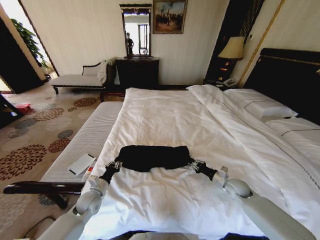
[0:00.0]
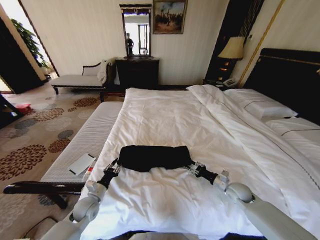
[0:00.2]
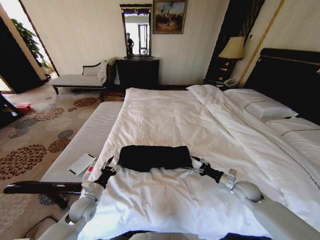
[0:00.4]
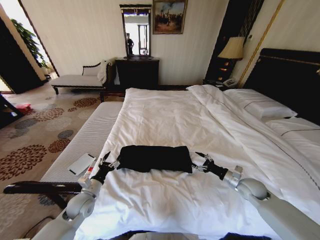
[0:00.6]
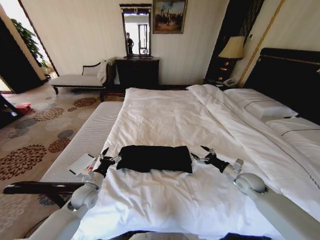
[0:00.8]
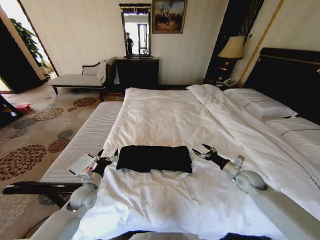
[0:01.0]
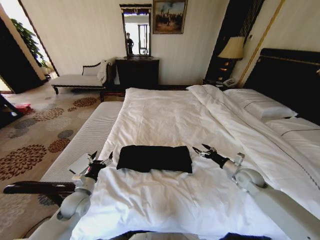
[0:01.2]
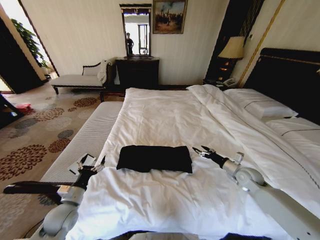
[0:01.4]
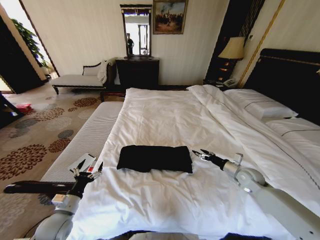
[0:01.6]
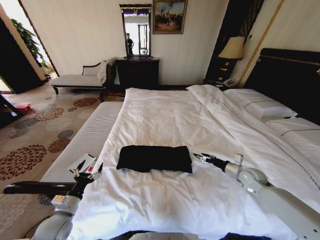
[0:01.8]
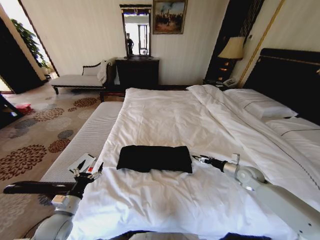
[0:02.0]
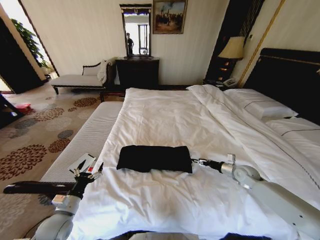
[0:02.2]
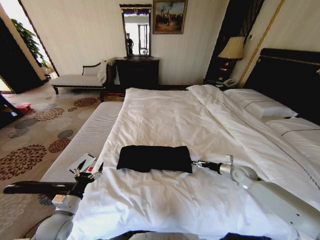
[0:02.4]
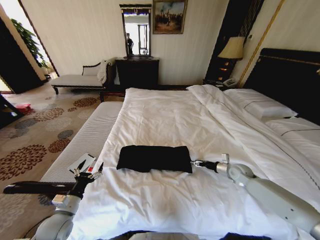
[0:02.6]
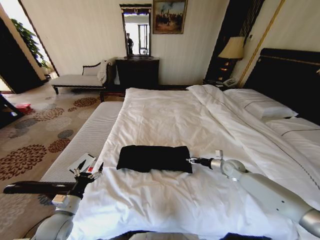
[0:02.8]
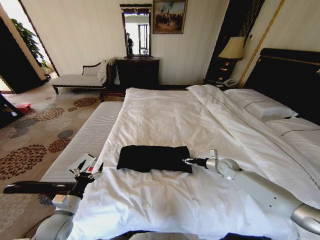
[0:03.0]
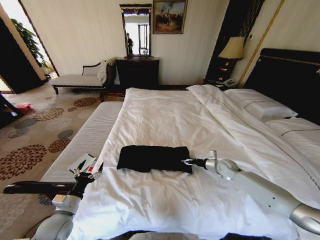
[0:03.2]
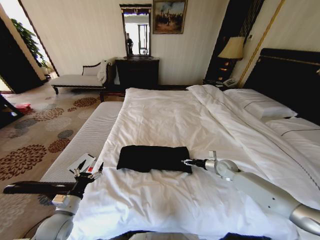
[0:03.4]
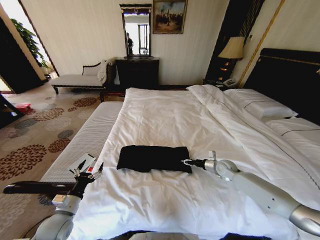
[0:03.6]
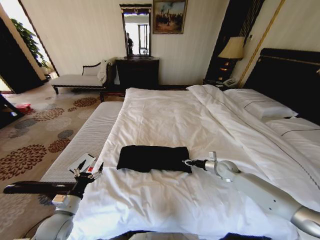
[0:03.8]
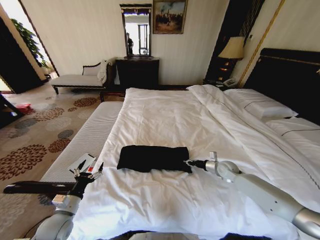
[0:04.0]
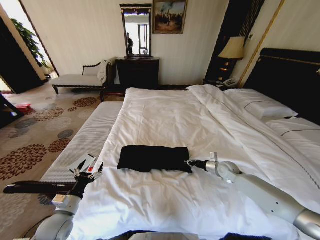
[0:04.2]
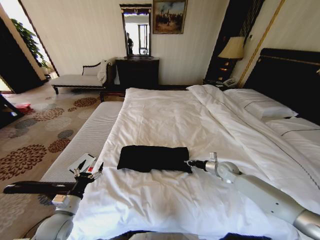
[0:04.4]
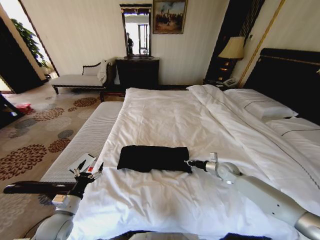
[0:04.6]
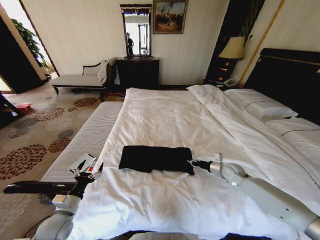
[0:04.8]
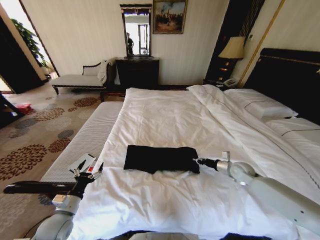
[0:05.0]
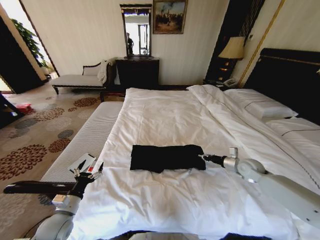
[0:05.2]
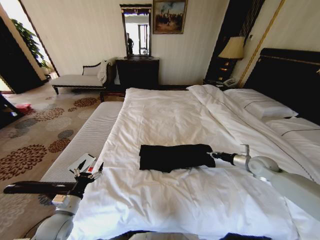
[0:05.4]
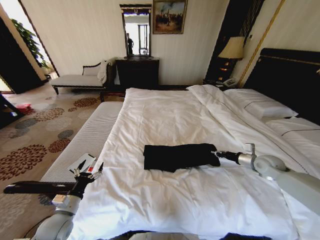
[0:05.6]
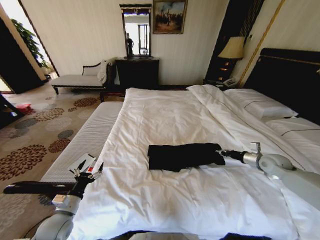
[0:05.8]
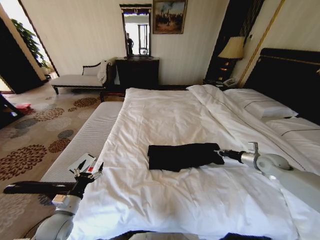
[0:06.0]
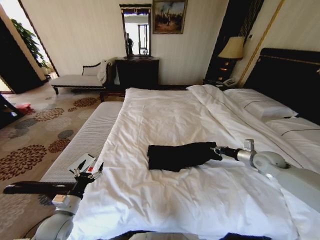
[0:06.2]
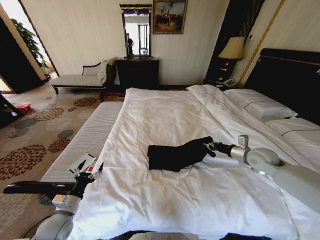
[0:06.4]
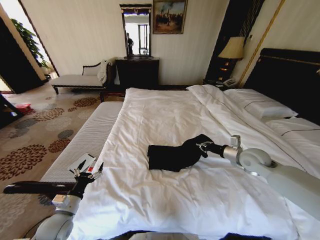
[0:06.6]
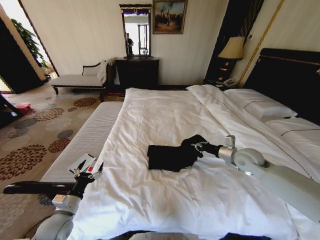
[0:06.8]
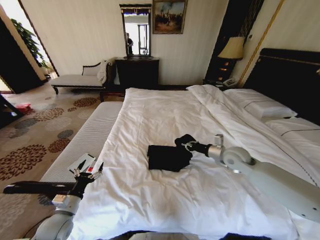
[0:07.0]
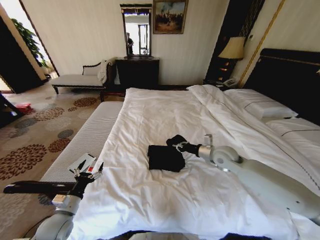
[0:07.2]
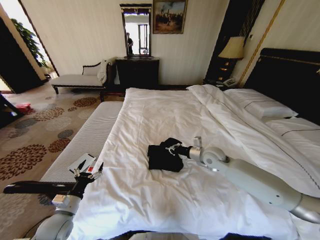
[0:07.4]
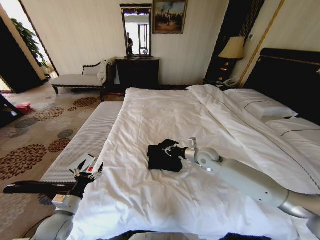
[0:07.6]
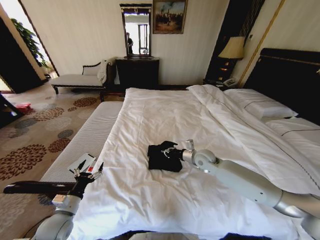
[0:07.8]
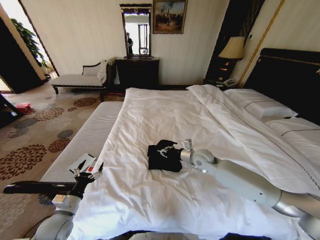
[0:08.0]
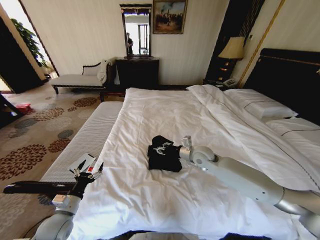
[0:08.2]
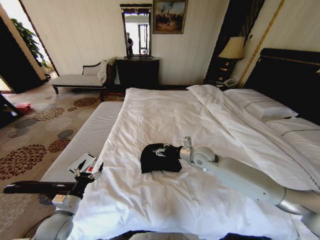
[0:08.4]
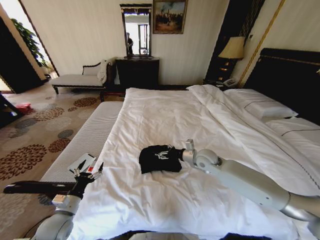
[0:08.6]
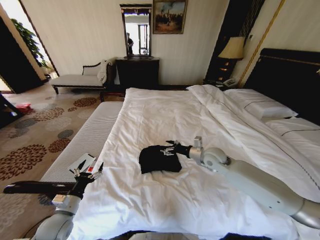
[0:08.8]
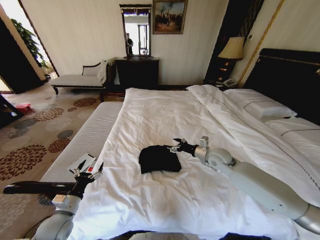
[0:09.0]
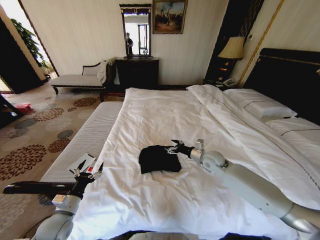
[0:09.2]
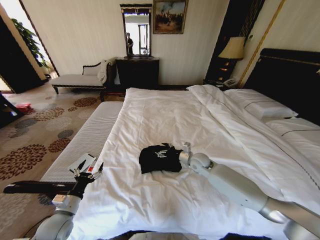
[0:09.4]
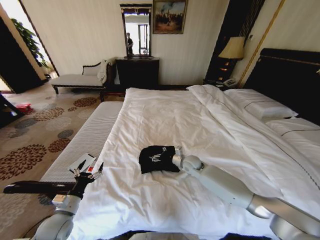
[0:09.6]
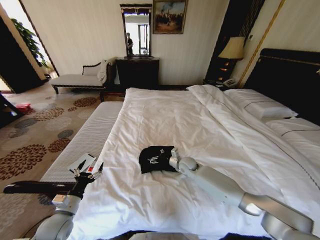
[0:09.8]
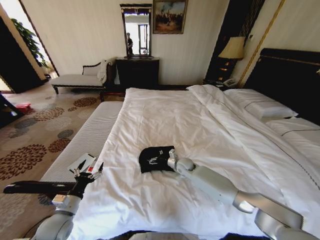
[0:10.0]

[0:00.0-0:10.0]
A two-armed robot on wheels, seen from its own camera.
Task of the whole recording: Fold the clothes on the bed.
0:00.0 to 0:01.4: The left gripper travels backward, to the left and upward by roughly 10 cm, and opens up, while the right gripper moves upward, roughly 5 cm, and opens up.
0:01.4 to 0:02.8: The right gripper shifts about 5 cm forward.
0:02.8 to 0:04.2: The right gripper closes its fingers.
0:04.2 to 0:05.8: The right gripper shifts some 20 cm to the right and upward.
0:05.8 to 0:07.2: The right gripper heads to the left, covering some 25 cm.
0:07.2 to 0:08.6: The right gripper is displaced to the left by about 5 cm, and opens up.
0:08.6 to 0:10.0: The right gripper moves downward and to the left, about 15 cm.

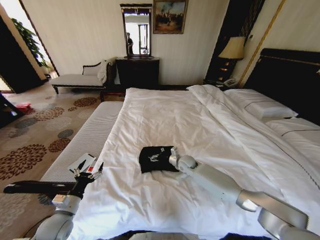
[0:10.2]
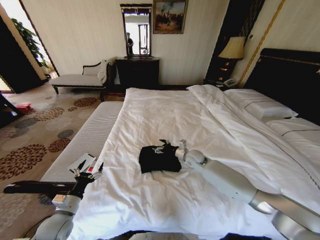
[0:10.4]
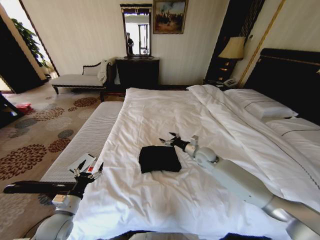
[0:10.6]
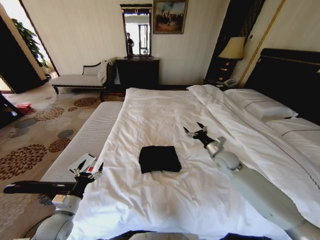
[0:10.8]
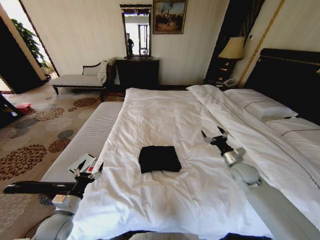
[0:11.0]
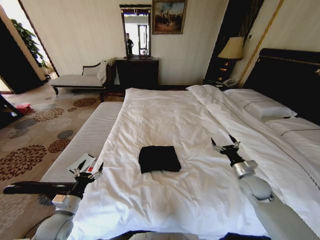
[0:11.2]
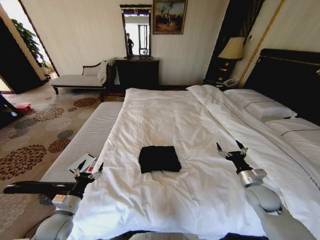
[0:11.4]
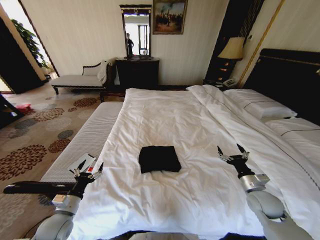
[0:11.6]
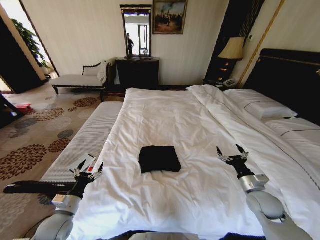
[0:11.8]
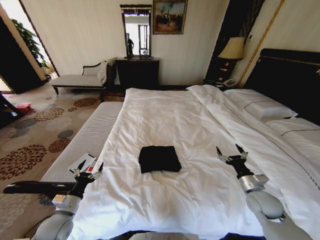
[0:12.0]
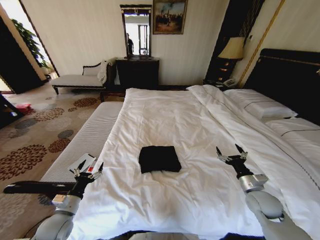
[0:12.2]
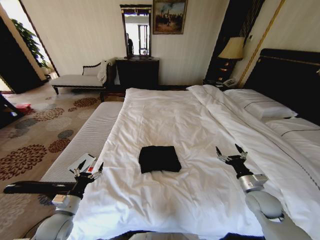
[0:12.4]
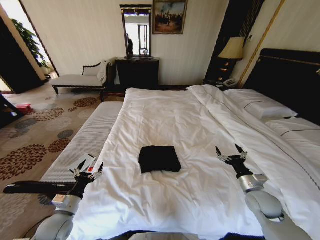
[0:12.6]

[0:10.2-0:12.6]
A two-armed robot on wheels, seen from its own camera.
Task of the whole recording: Fold the clothes on the bed.
0:10.2 to 0:11.4: The right gripper goes roughly 30 cm to the right and backward.
0:11.4 to 0:12.6: There are only small adjustments of the grippers.

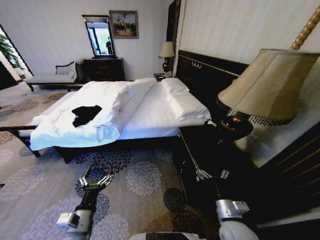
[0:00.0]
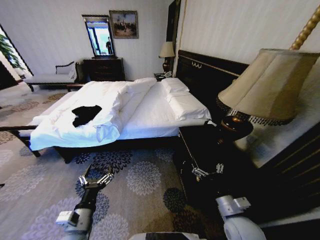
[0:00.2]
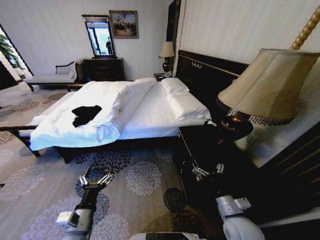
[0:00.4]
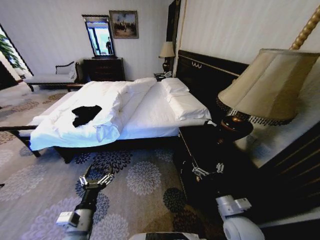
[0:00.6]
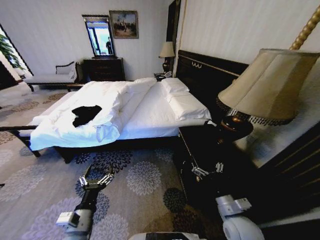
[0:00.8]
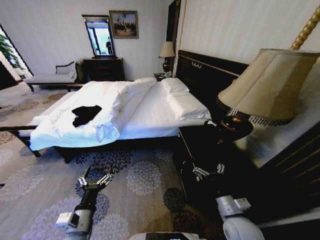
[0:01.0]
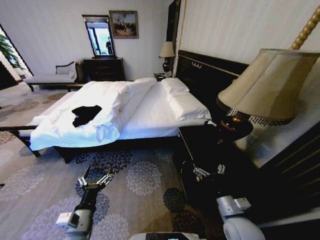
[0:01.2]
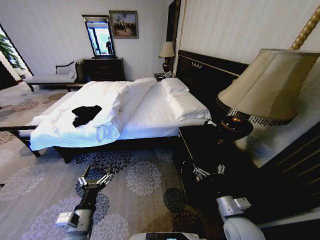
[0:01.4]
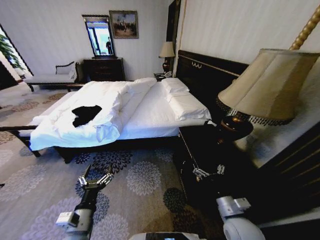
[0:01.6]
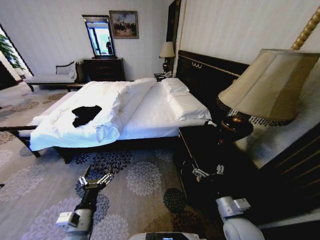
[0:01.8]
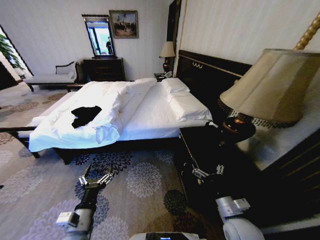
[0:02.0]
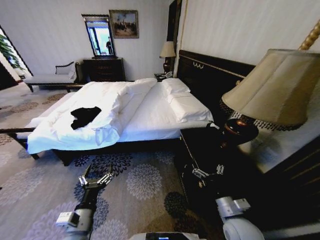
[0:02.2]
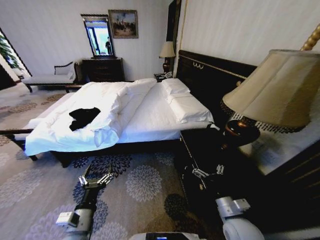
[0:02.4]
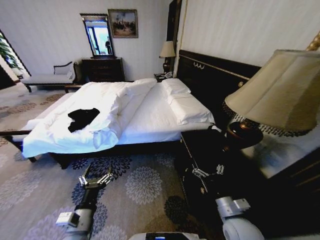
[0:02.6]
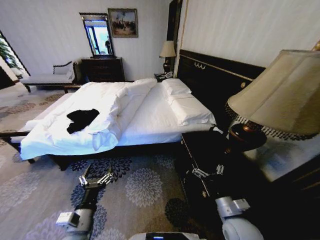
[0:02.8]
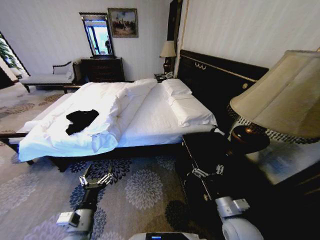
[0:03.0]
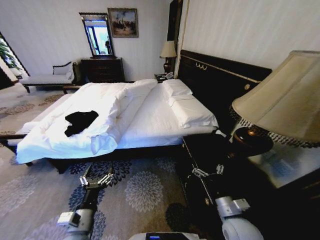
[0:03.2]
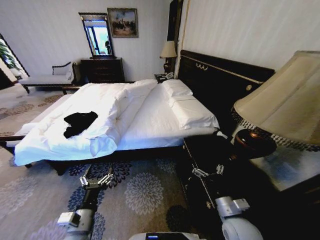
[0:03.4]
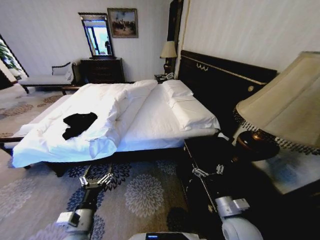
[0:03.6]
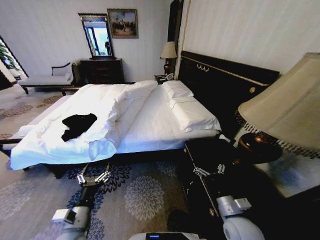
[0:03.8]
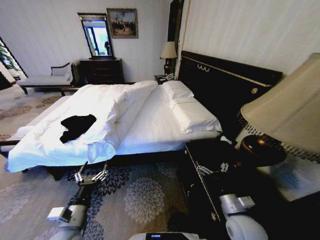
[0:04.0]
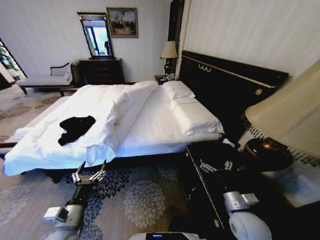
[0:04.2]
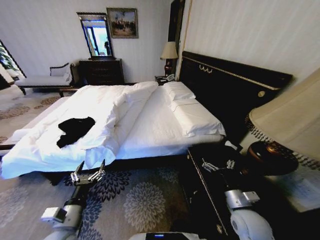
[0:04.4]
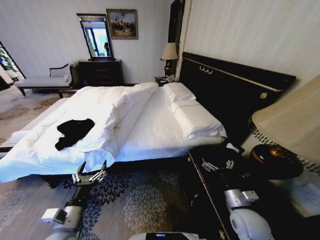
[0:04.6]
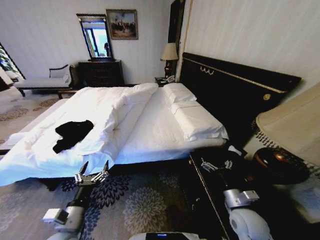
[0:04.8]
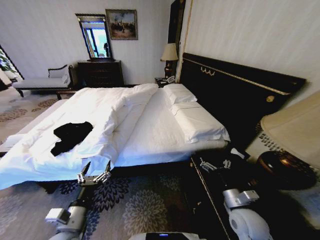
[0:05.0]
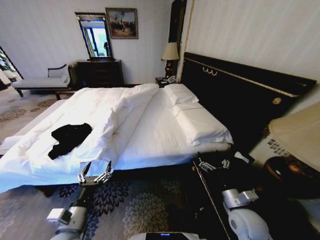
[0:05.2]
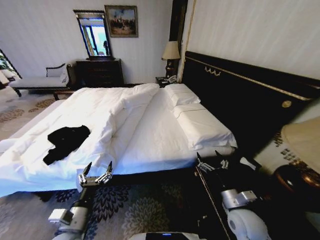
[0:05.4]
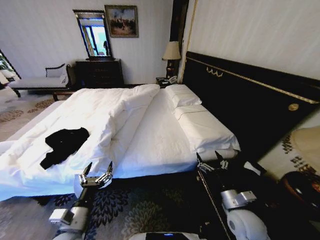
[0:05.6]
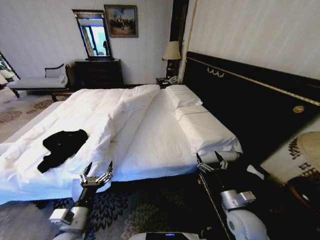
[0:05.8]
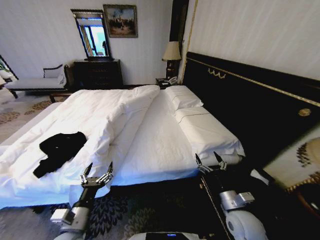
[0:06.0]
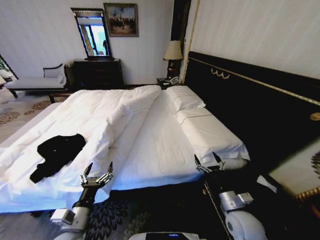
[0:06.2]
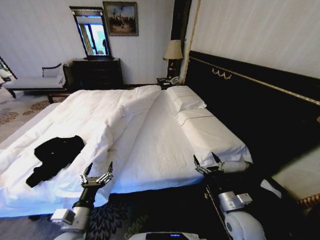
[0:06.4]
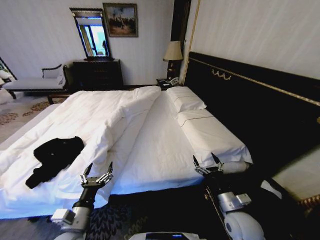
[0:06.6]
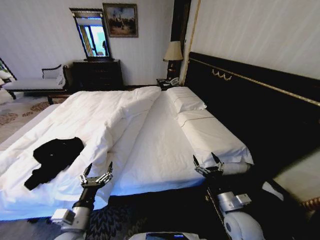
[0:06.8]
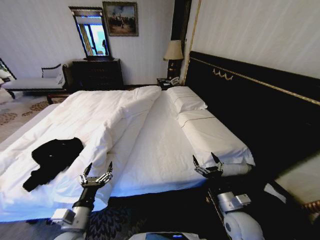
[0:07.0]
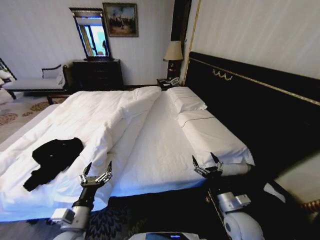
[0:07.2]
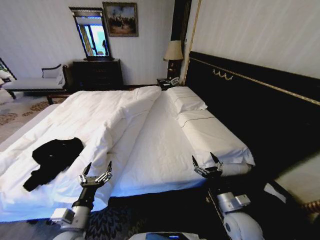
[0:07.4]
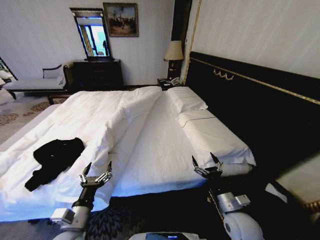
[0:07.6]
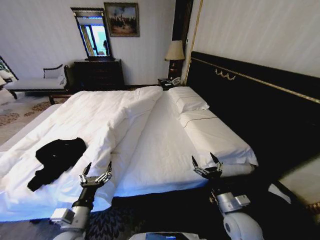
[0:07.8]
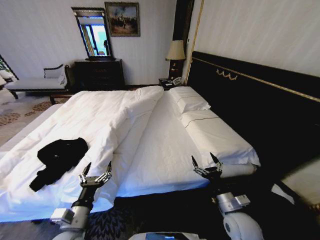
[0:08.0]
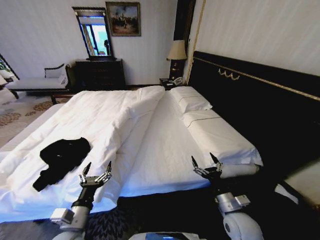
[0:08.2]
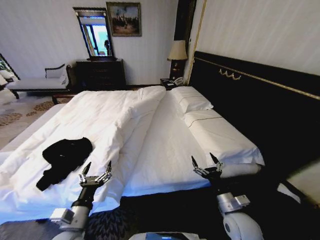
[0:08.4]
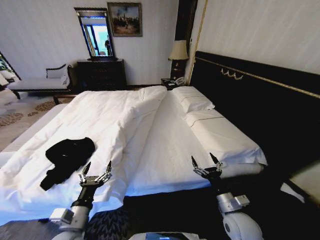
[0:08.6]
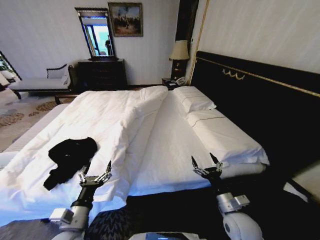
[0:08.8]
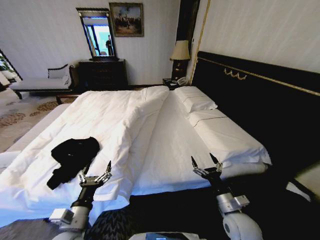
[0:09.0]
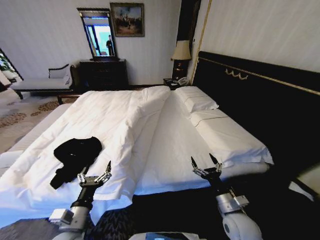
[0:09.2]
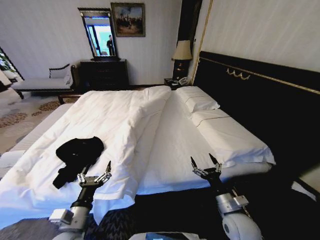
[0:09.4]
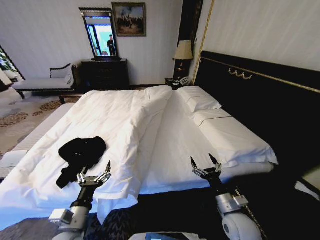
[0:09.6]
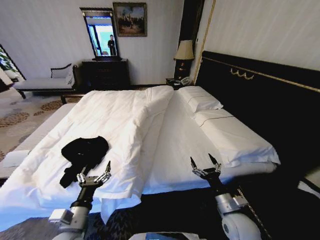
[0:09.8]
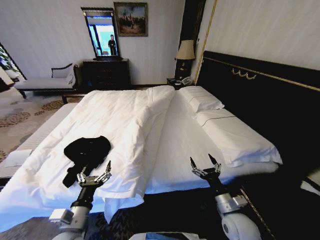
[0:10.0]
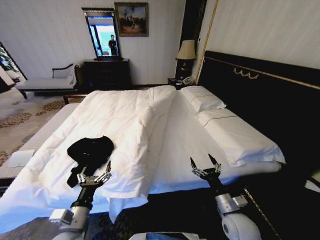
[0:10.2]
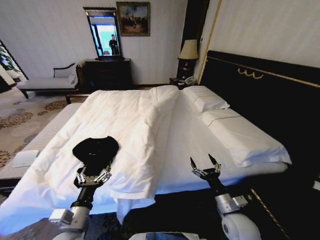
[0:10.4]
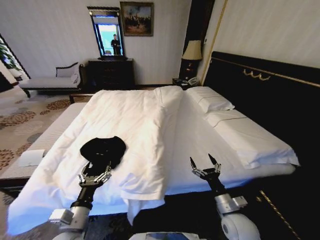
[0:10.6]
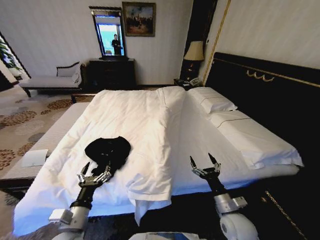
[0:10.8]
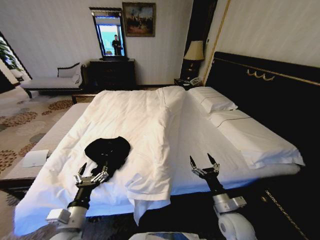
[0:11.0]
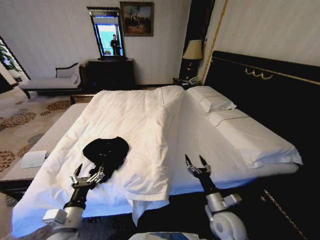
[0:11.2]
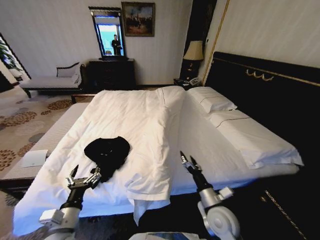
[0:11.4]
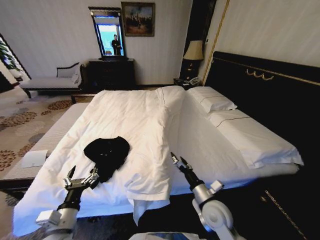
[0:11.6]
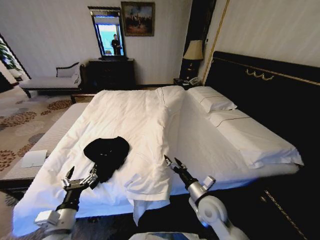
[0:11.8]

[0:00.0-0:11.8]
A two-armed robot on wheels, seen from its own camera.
Task of the whole recording: Fold the clothes on the bed.
0:10.4 to 0:11.8: The right gripper goes about 10 cm to the left and forward.
